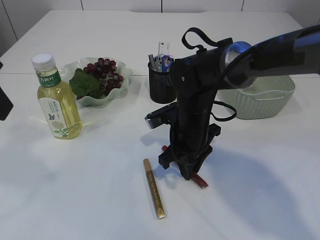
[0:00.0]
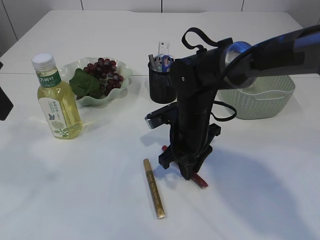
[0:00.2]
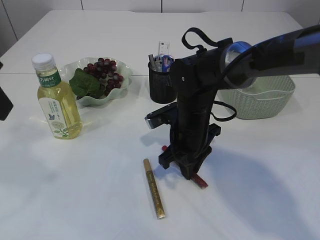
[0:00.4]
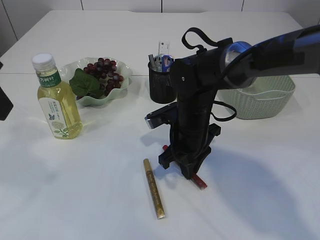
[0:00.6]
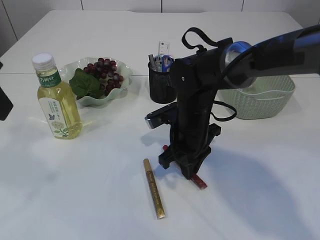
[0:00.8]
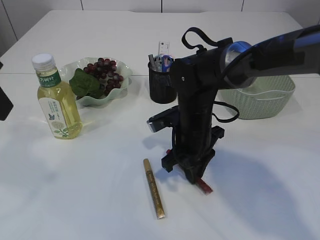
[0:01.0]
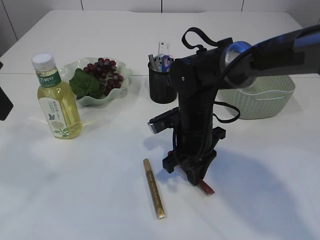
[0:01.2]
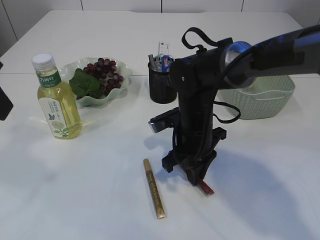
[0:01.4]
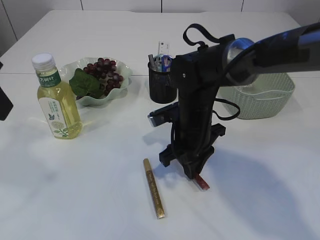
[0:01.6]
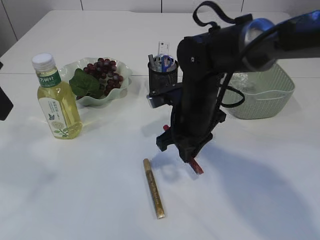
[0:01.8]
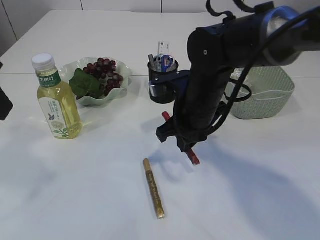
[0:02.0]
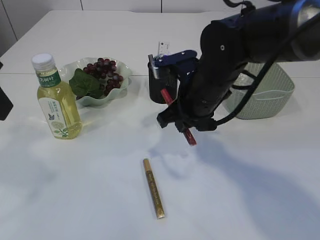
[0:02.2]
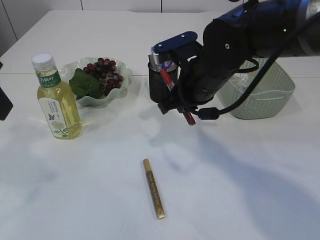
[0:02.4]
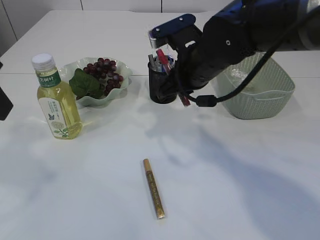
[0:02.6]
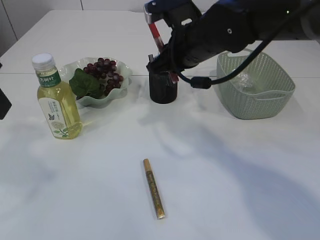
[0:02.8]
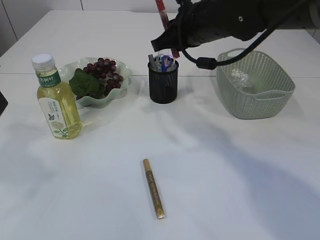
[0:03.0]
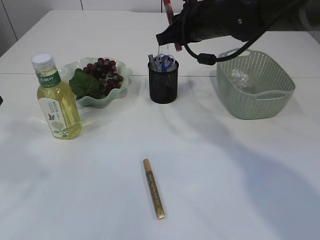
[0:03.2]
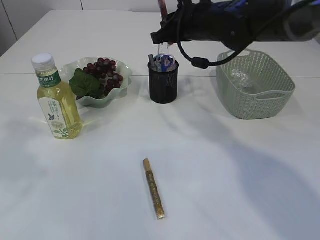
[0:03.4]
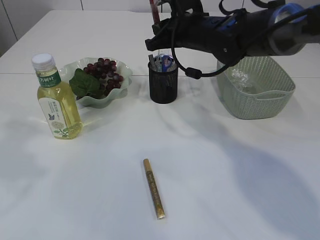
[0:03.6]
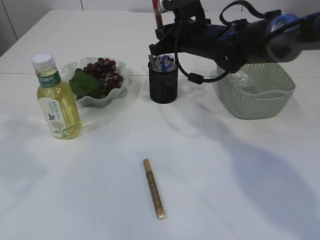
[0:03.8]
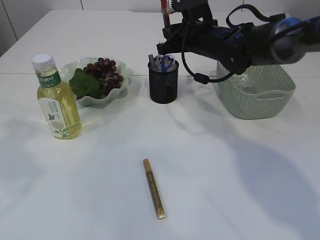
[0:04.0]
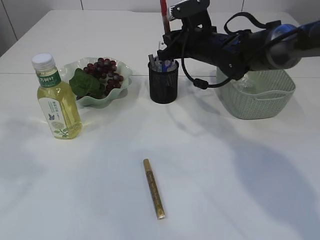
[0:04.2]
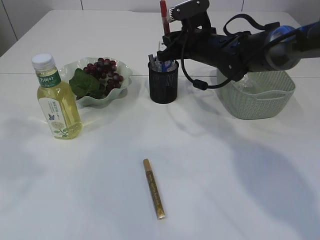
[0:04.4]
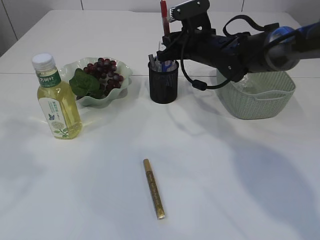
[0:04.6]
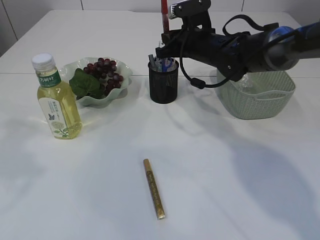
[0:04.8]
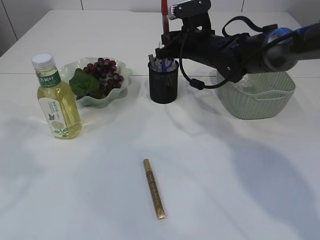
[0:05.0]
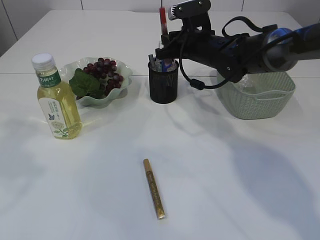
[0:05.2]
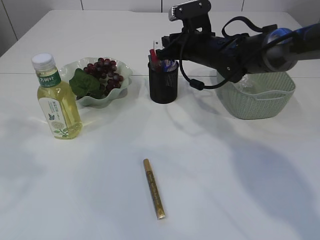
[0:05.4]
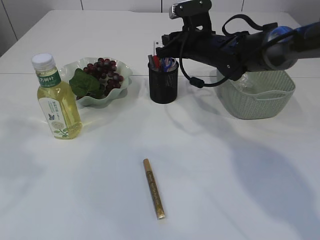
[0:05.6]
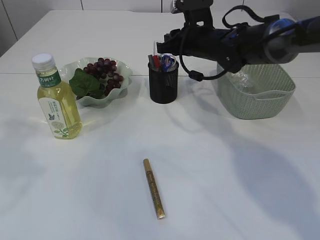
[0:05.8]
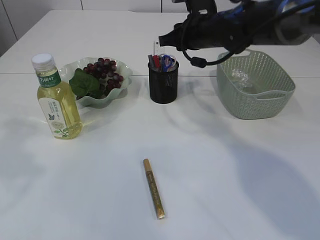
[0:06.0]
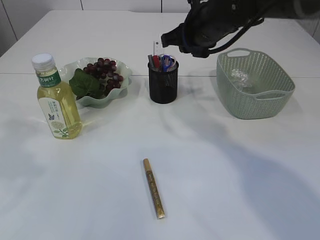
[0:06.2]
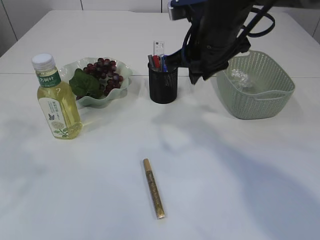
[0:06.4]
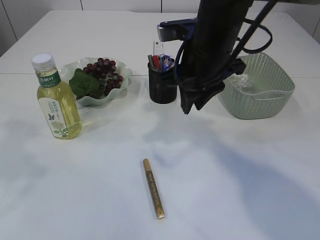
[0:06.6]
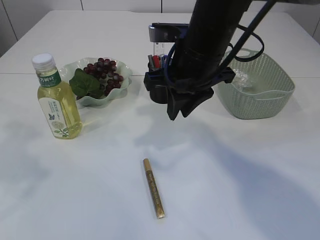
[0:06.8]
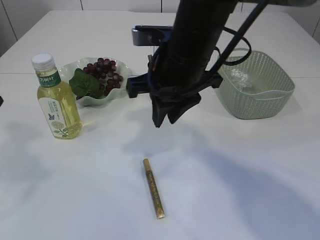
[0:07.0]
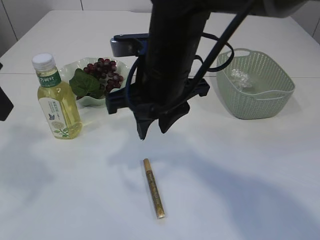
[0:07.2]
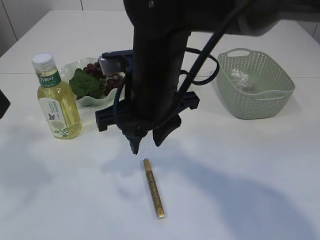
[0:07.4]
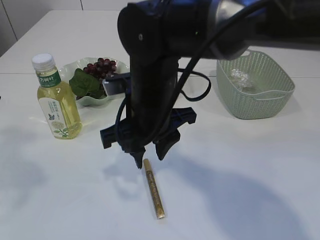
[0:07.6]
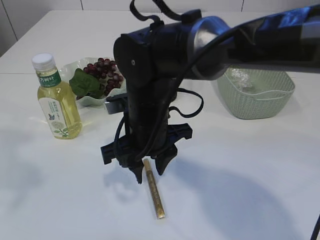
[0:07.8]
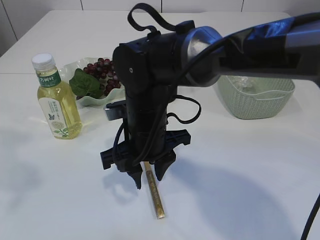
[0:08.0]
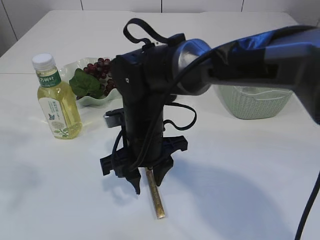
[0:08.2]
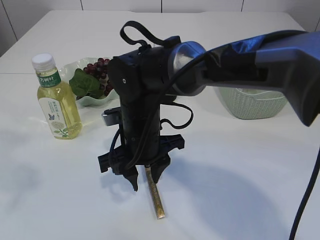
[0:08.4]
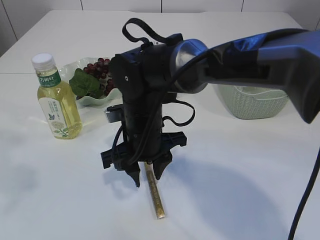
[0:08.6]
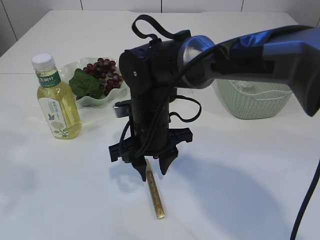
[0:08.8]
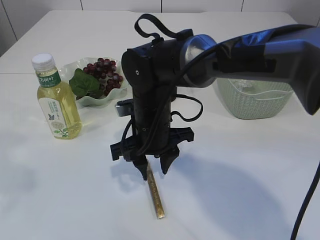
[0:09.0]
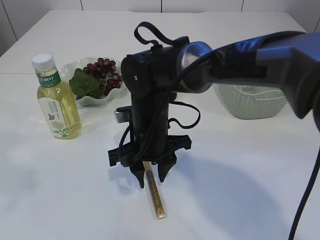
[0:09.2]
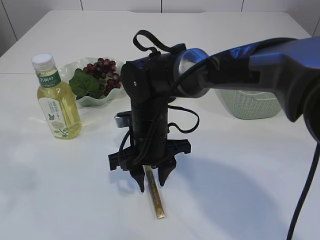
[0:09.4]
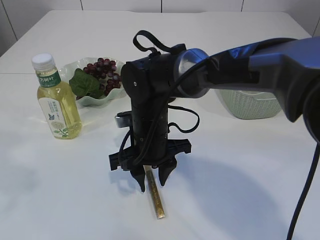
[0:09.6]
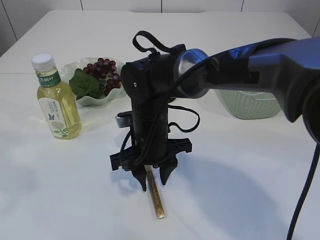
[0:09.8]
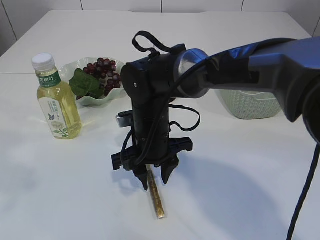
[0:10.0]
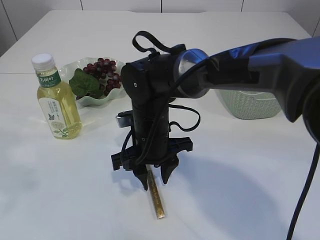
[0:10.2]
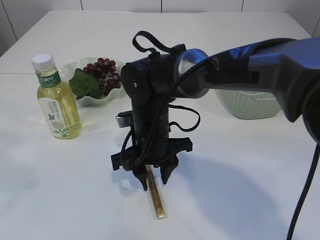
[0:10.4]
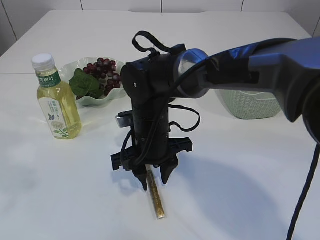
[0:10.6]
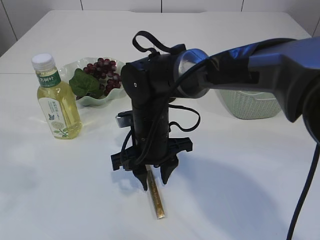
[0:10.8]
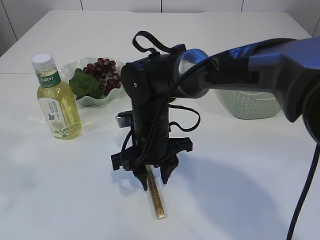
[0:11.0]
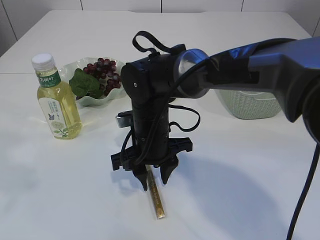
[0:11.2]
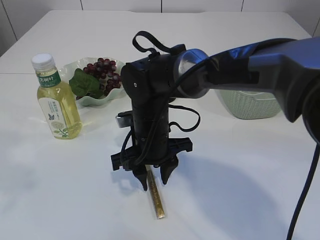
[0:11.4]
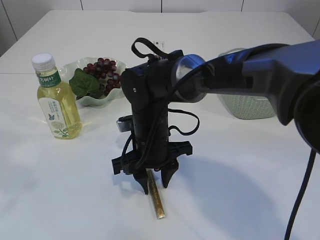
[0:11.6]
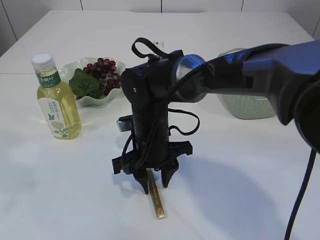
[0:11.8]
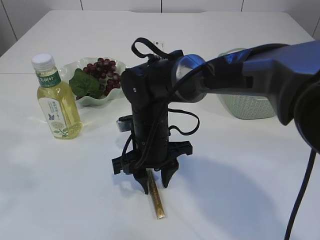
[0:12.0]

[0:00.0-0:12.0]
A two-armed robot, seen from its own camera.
Step, 0:00.0 to 0:02.0: pick up the red glue.
Step, 0:02.2 to 0:05.8: place the red glue into the pen holder.
0:00.0 to 0:01.6: There are only small adjustments of the grippers.
0:01.6 to 0:03.0: The right gripper travels upward by some 15 cm.
0:03.0 to 0:04.4: The right gripper travels downward and forward by about 10 cm.
0:04.4 to 0:06.0: The grippers stay close to where they were, moving slightly.
0:06.0 to 0:07.6: The right gripper goes about 20 cm backward and to the left.
0:07.6 to 0:09.0: The right gripper travels downward by some 5 cm.
0:09.0 to 0:10.4: The grippers stay close to where they were, moving slightly.
0:10.4 to 0:12.0: The two grippers keep their place.

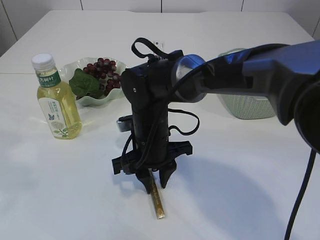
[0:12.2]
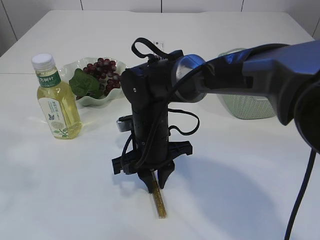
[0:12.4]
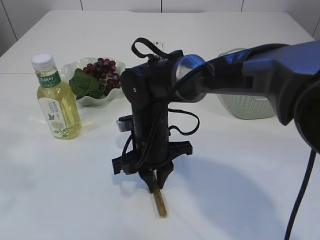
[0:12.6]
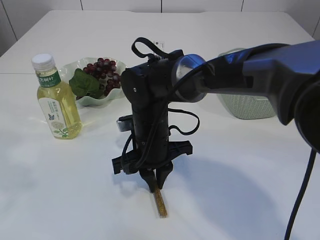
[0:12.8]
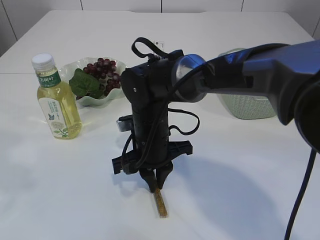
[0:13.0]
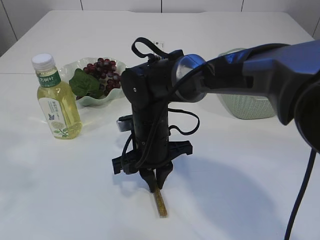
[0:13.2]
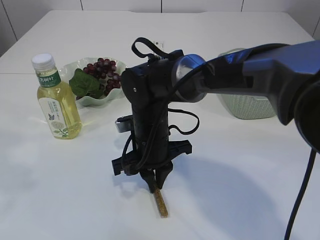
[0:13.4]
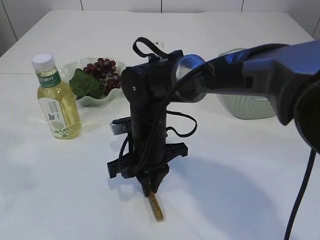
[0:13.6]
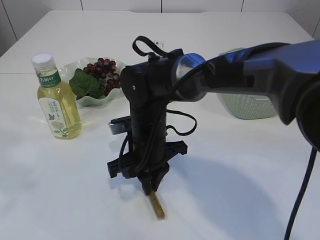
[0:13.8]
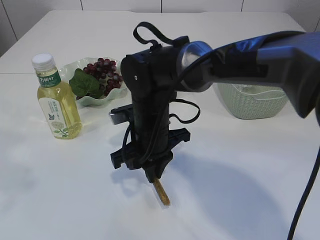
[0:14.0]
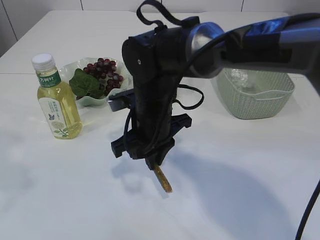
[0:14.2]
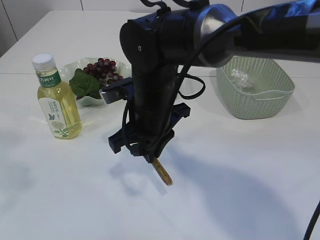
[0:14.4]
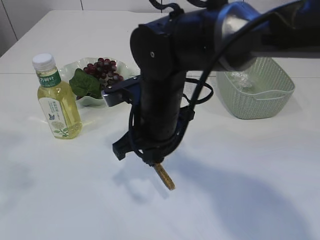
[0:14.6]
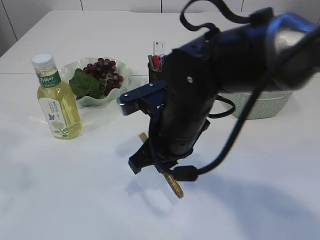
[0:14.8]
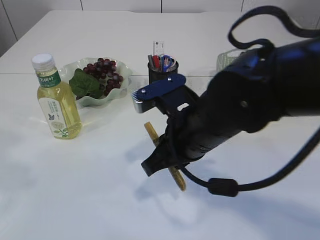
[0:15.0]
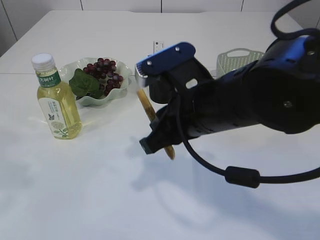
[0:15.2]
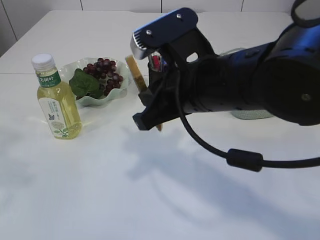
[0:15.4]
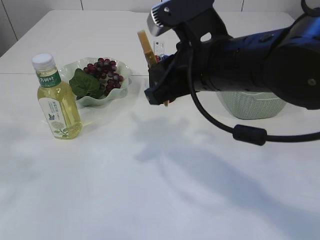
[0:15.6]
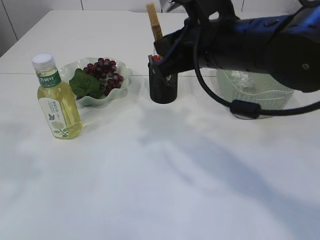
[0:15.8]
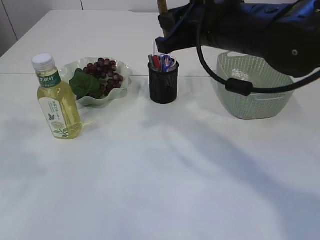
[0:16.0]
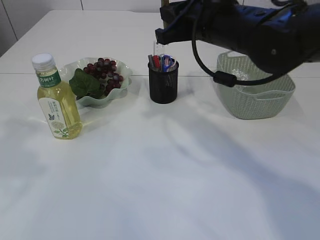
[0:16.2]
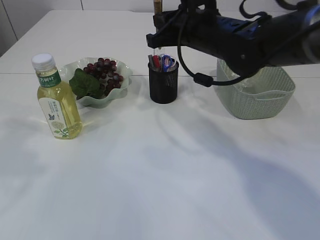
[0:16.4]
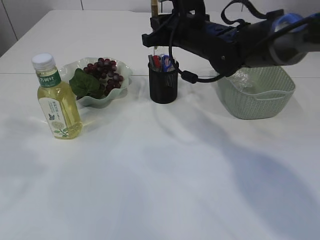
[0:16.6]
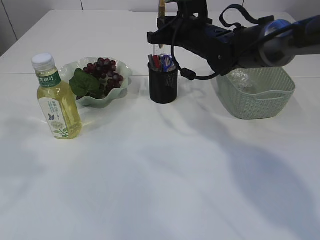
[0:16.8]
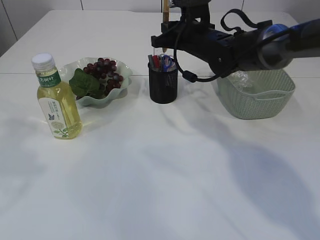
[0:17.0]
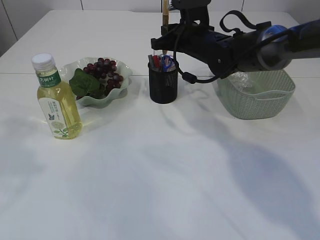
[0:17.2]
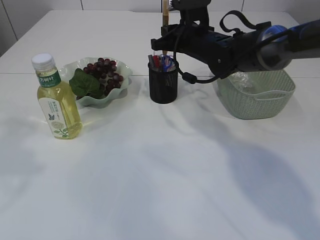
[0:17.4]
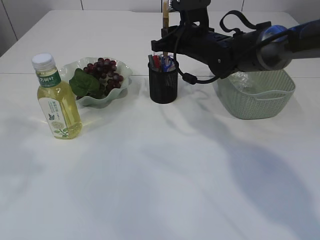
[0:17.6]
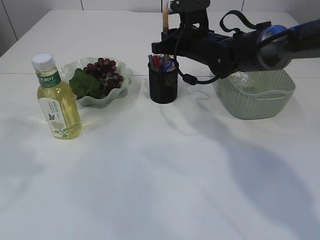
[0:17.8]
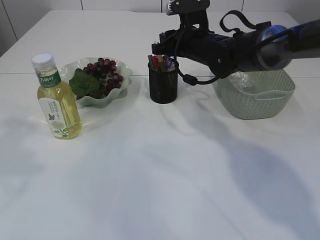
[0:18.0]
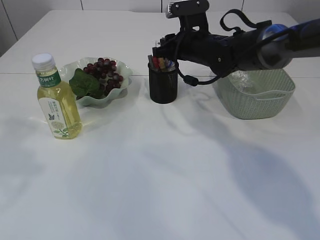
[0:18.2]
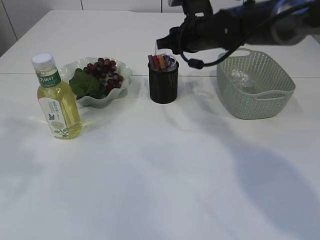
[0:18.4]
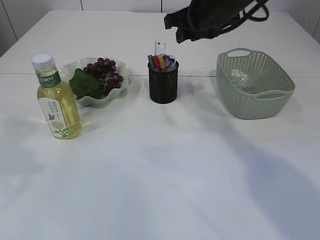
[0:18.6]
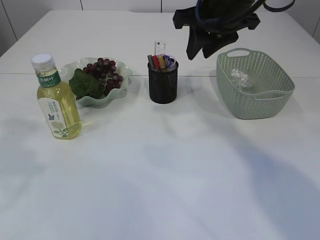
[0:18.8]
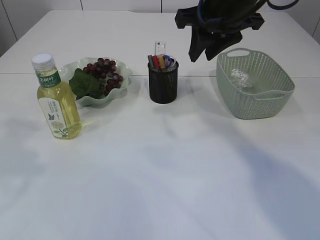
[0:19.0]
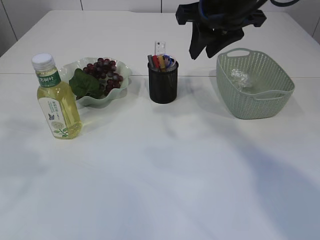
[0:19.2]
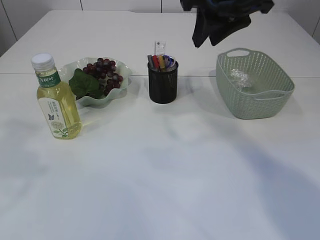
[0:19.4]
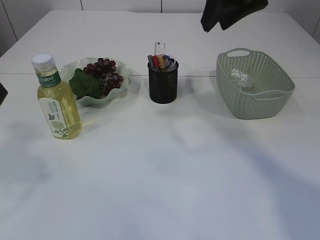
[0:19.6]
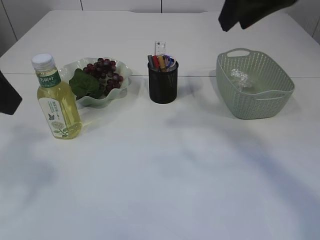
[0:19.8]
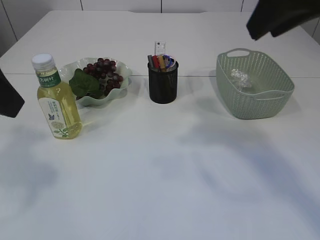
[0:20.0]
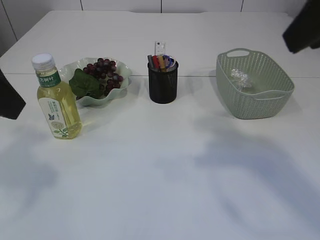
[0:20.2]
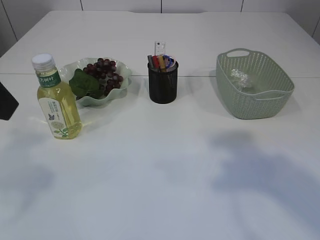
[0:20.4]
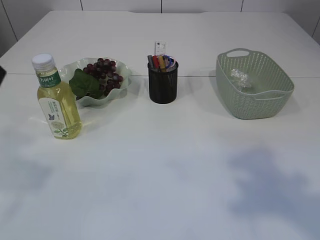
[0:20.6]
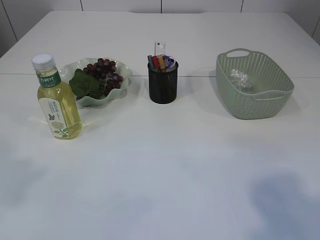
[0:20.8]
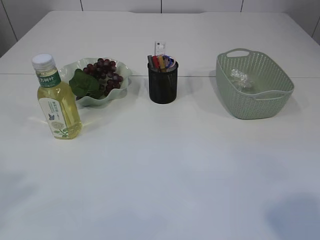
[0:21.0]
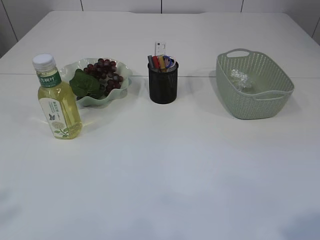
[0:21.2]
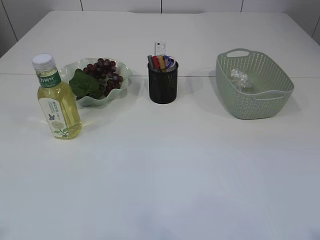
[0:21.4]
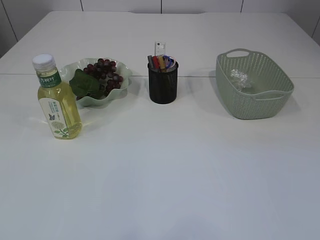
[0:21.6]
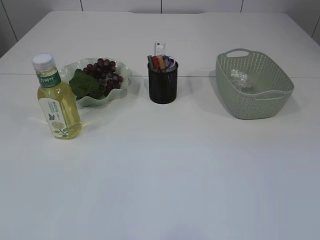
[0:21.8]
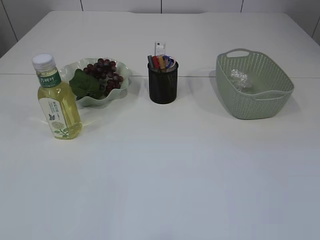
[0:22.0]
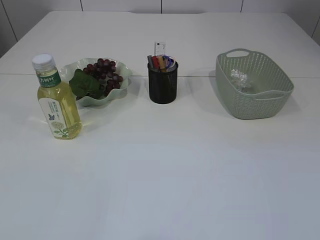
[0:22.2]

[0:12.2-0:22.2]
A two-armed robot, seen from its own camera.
Step, 0:12.2 to 0:14.4: pick up the yellow glue.
Step, 0:14.6 to 0:18.4: place the yellow glue into the pen holder.
0:12.2 to 0:13.6: The right gripper closes.
0:13.6 to 0:15.0: The right gripper travels upward, backward and to the right by approximately 15 cm.
0:15.0 to 0:16.4: The right gripper goes approximately 15 cm forward.
0:16.4 to 0:18.0: The right gripper is displaced forward and downward by roughly 10 cm, and opens its fingers.
0:18.0 to 0:19.4: The right gripper shifts approximately 20 cm upward and backward.
0:19.4 to 0:20.8: The right gripper is displaced backward and to the right by roughly 30 cm. The left gripper heads backward, covering approximately 5 cm.
0:20.8 to 0:22.2: The right gripper moves downward and backward, roughly 15 cm.
